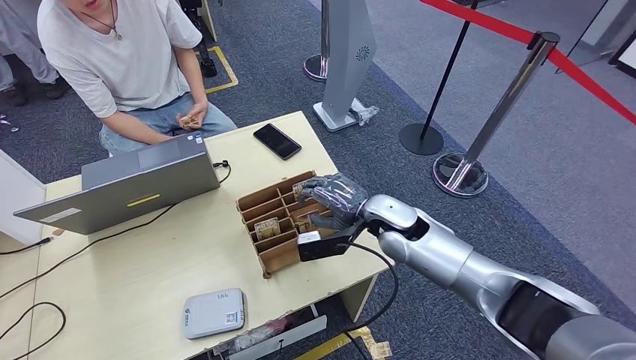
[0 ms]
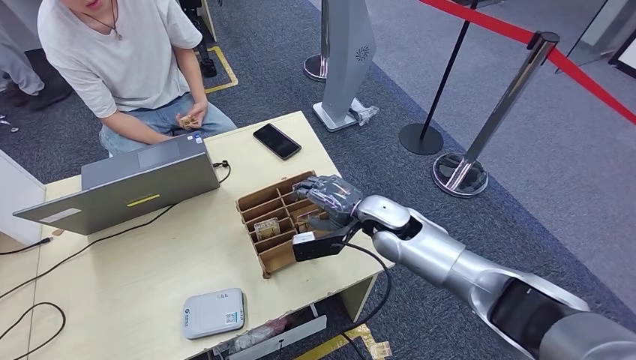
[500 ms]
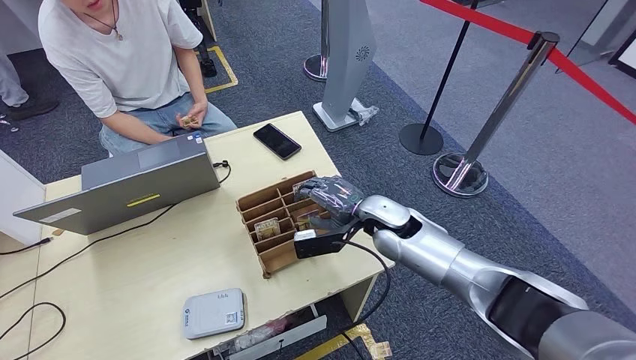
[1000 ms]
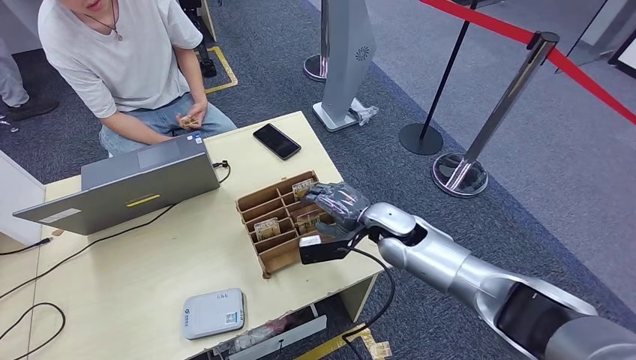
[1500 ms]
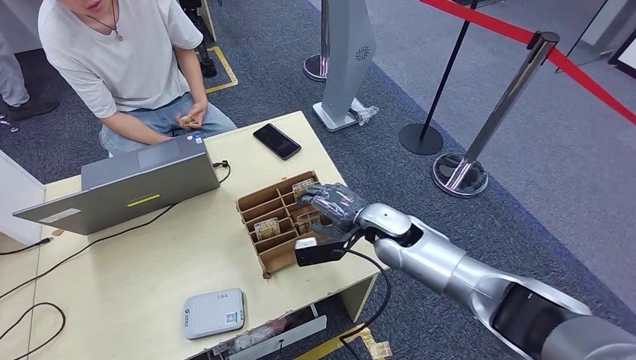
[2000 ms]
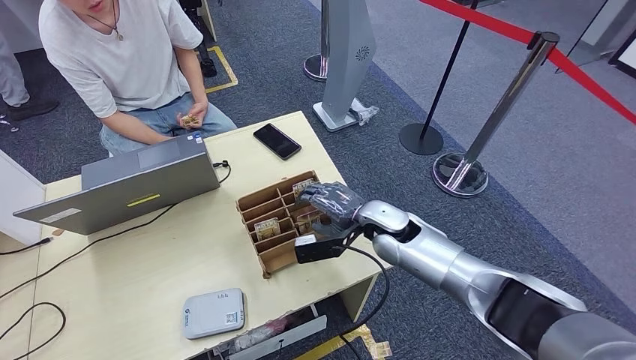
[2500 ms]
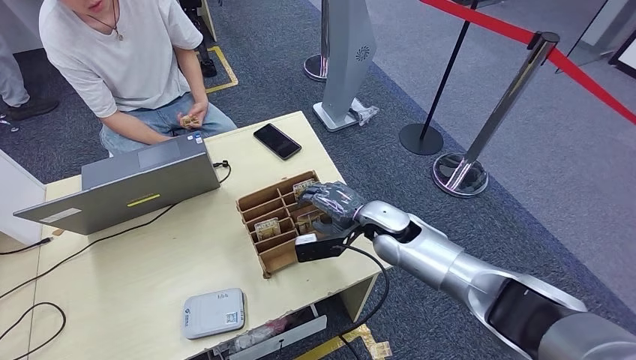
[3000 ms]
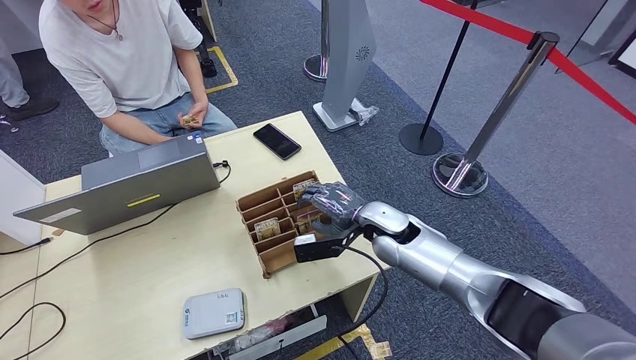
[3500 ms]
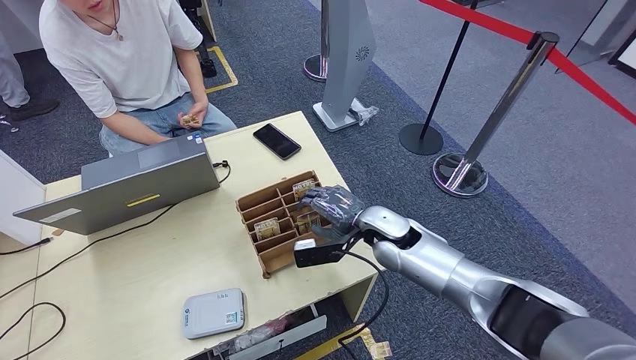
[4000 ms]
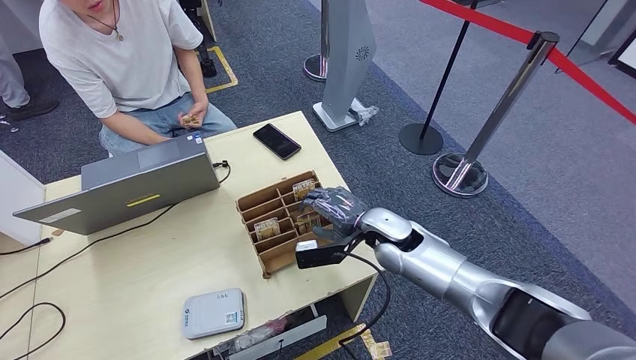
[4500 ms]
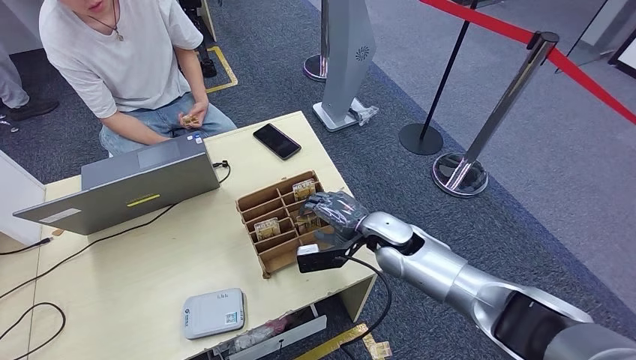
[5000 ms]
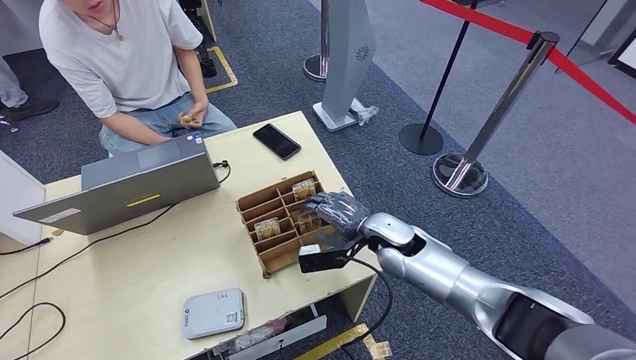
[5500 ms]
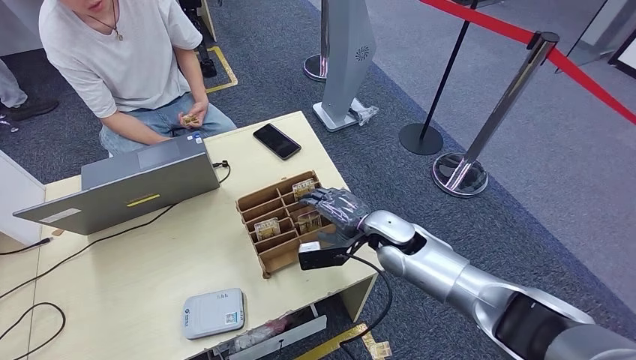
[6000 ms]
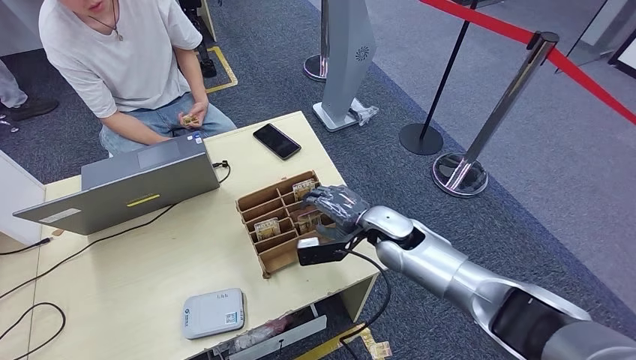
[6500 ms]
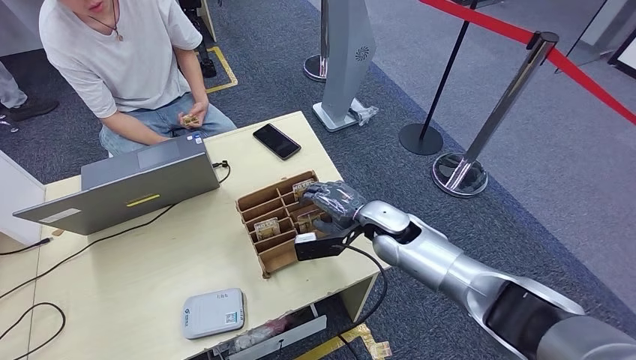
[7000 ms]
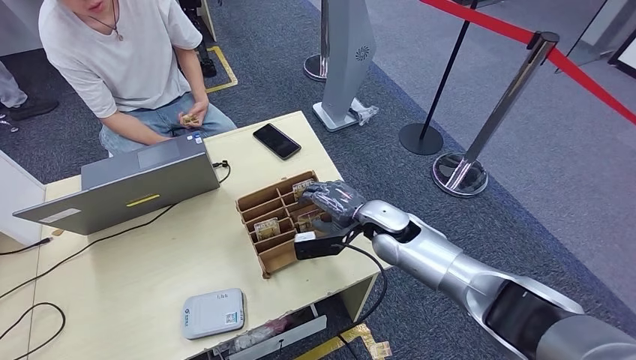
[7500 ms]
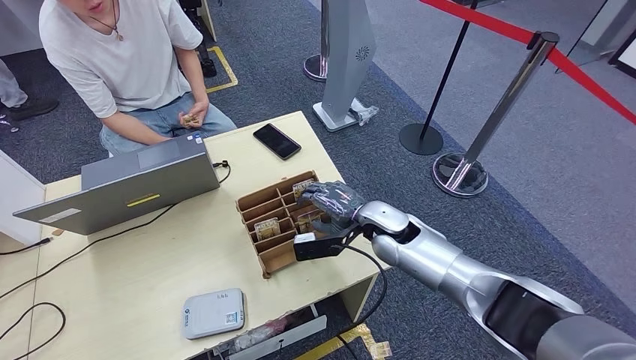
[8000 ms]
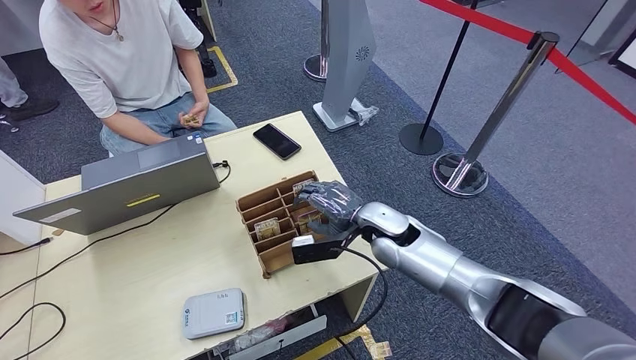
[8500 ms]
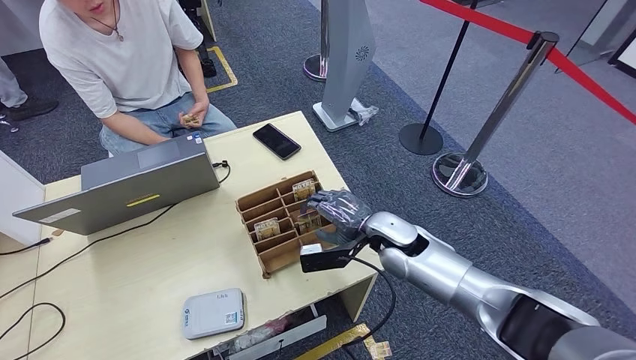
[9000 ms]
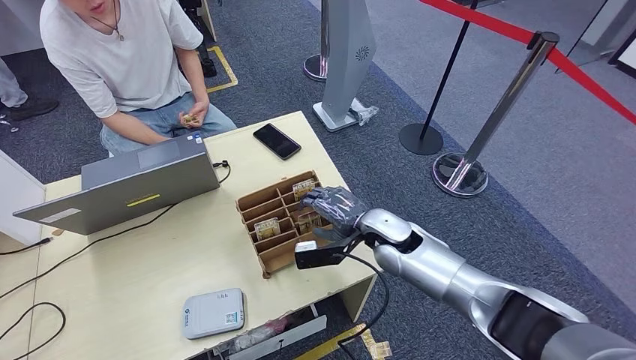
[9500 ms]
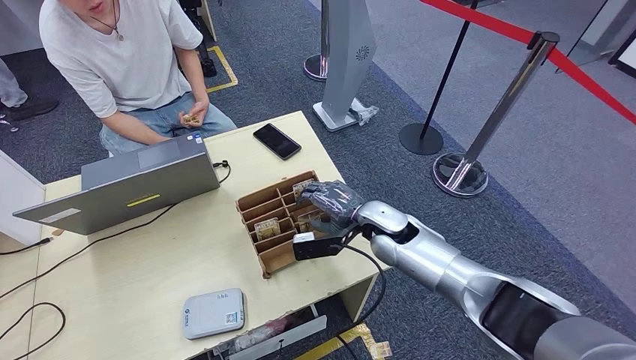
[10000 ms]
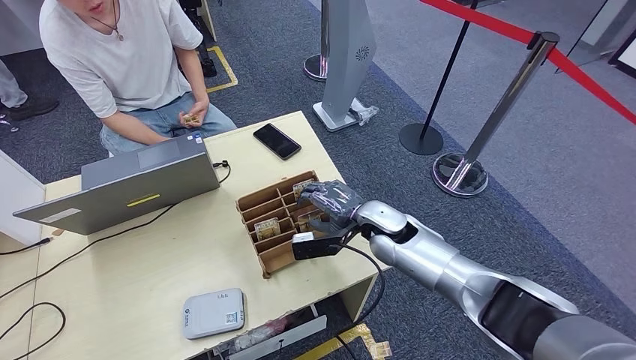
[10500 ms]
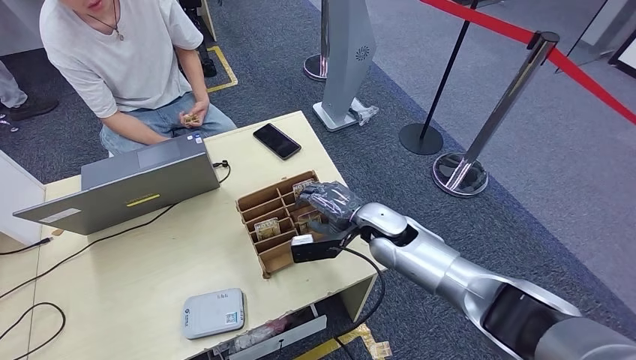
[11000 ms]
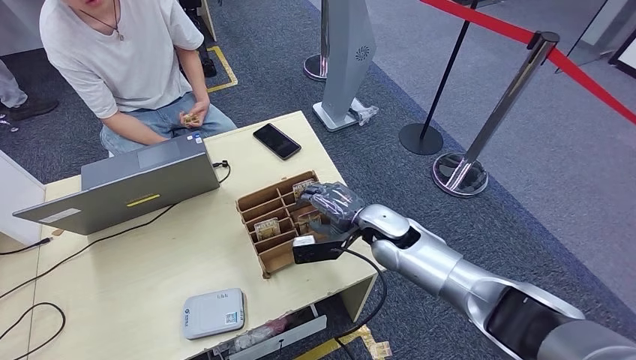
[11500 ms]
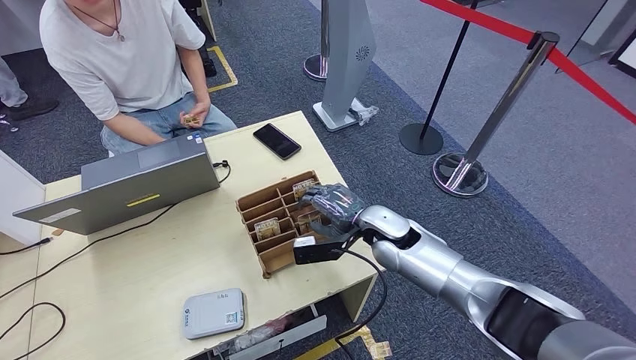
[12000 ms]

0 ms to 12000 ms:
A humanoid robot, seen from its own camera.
0 ms to 2000 ms: The hands move only a little.
2000 ms to 4000 ms: The two hands keep their place.
4000 ms to 10000 ms: The hands make only small movements.
10000 ms to 12000 ms: Both hands stay put.

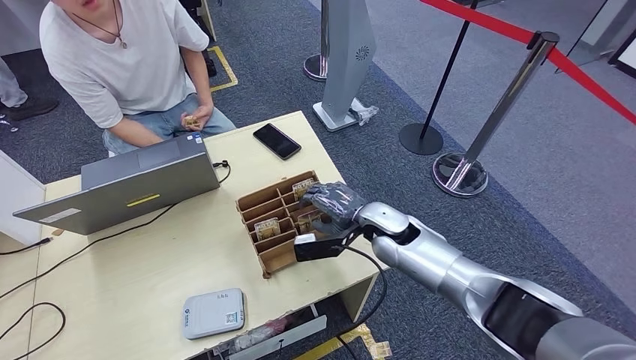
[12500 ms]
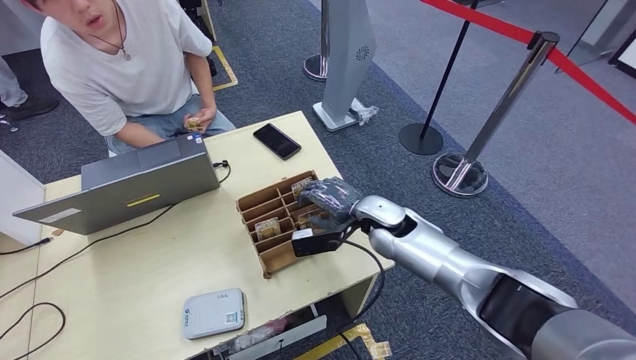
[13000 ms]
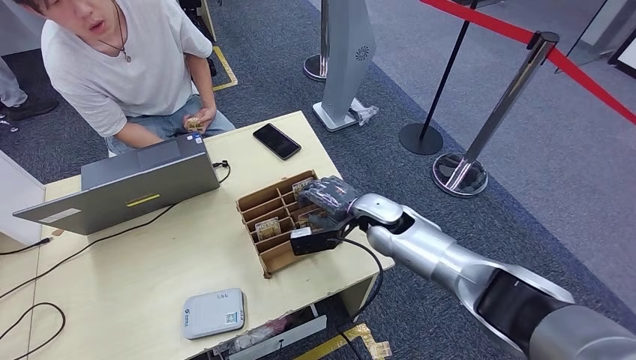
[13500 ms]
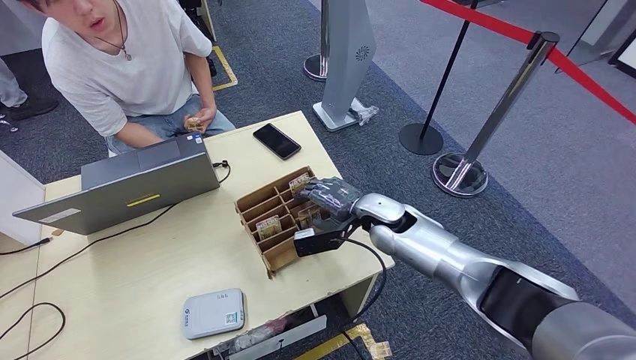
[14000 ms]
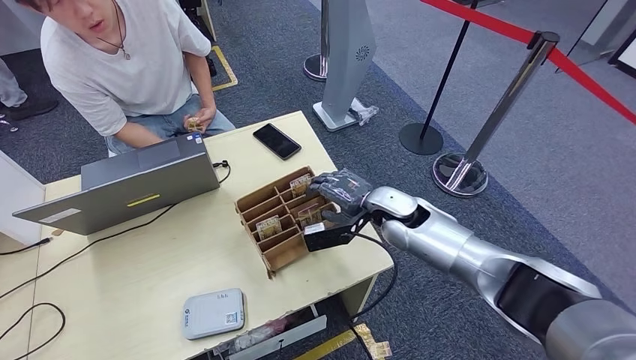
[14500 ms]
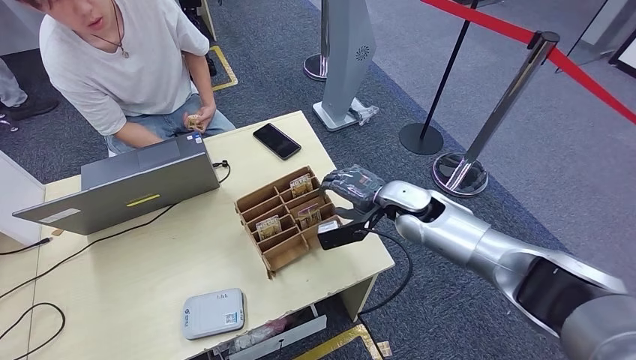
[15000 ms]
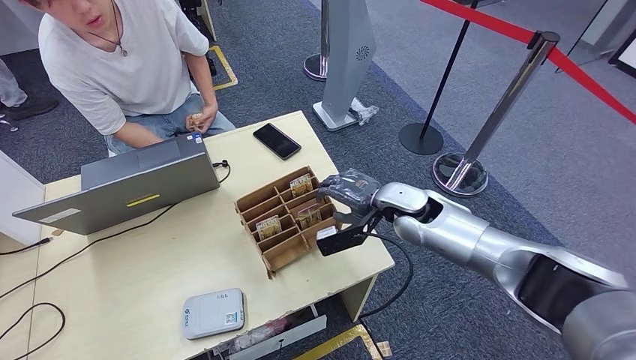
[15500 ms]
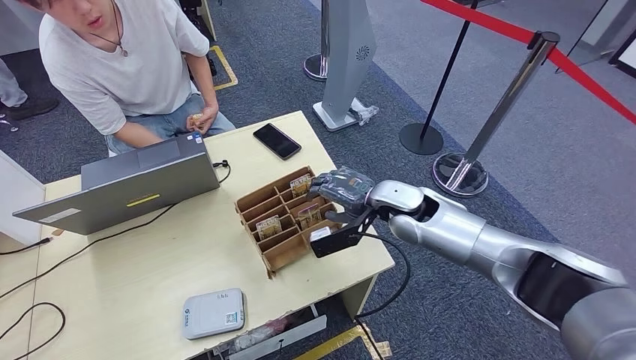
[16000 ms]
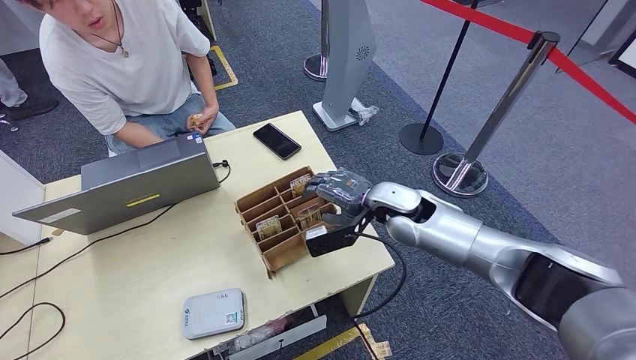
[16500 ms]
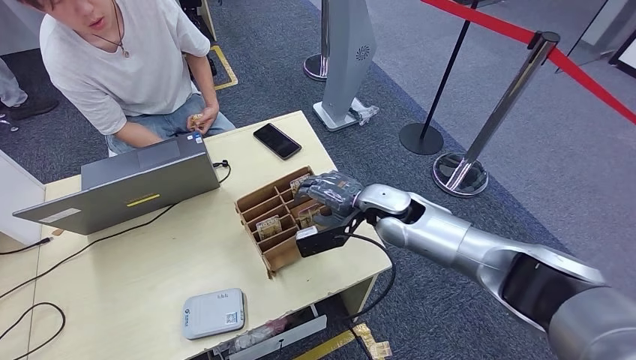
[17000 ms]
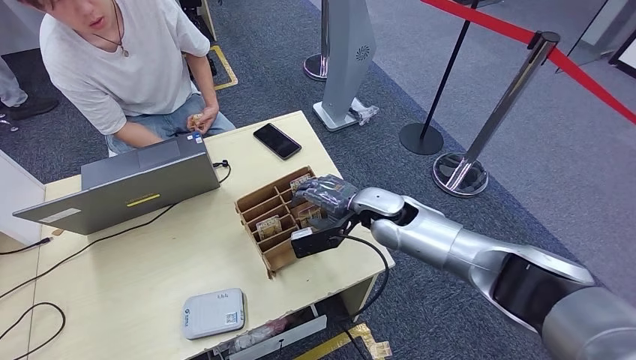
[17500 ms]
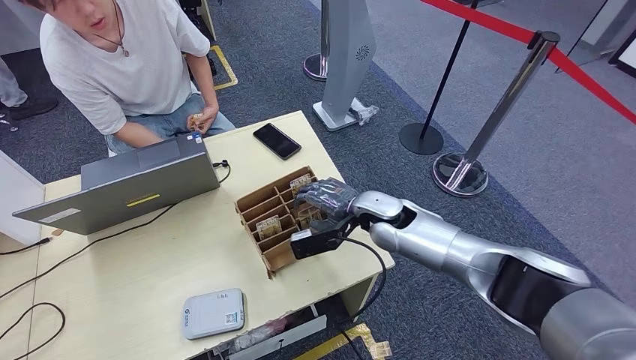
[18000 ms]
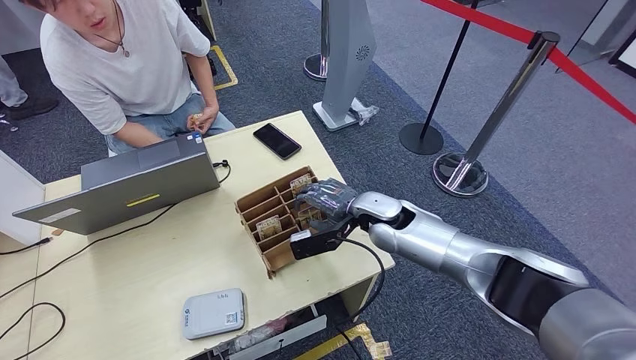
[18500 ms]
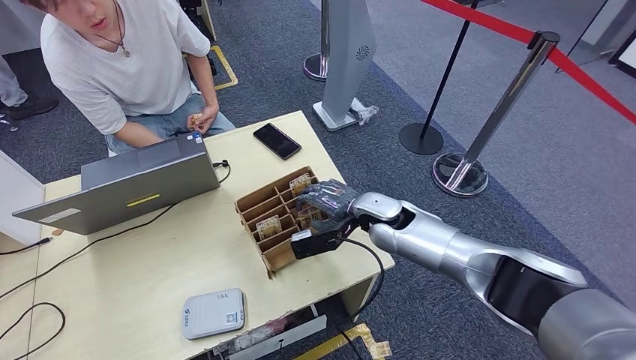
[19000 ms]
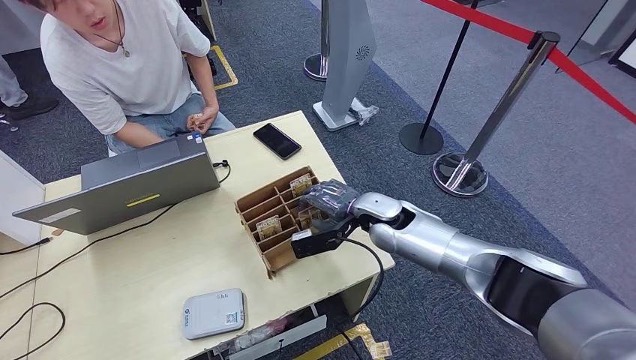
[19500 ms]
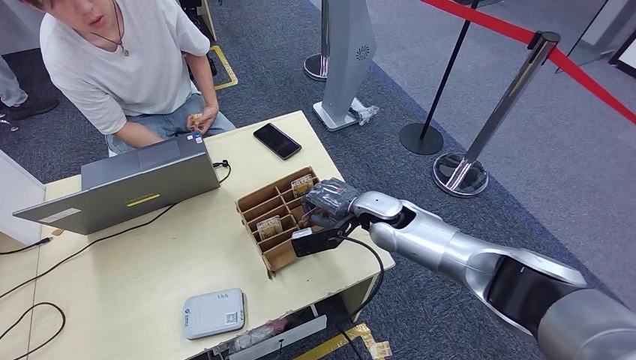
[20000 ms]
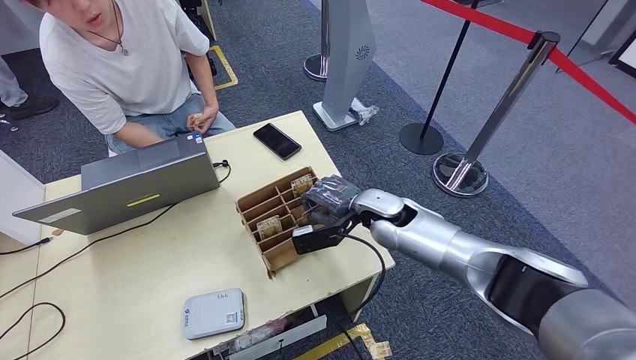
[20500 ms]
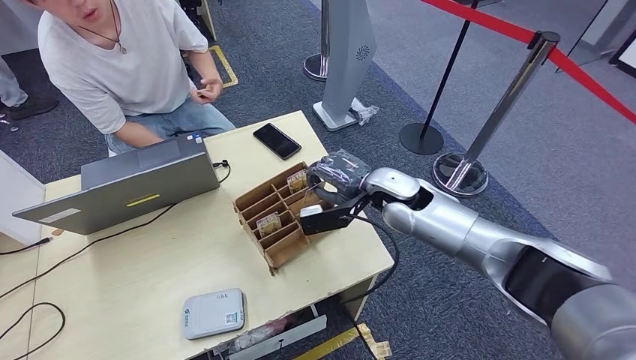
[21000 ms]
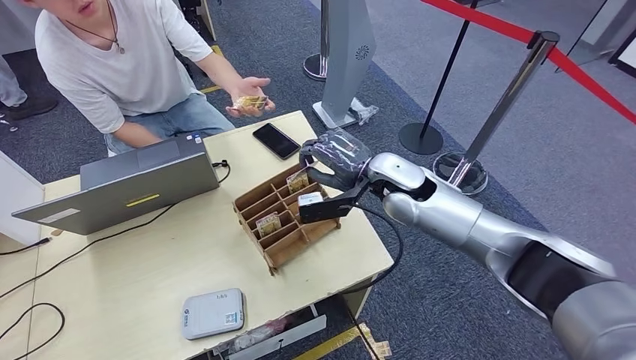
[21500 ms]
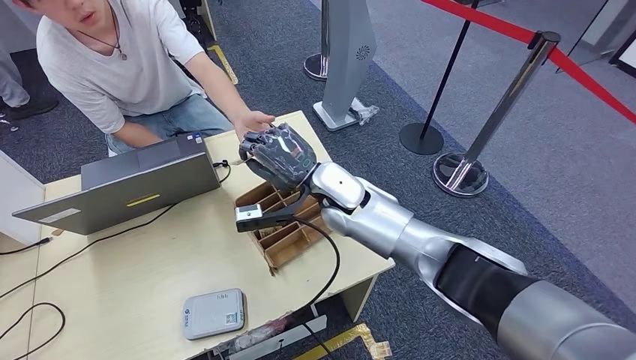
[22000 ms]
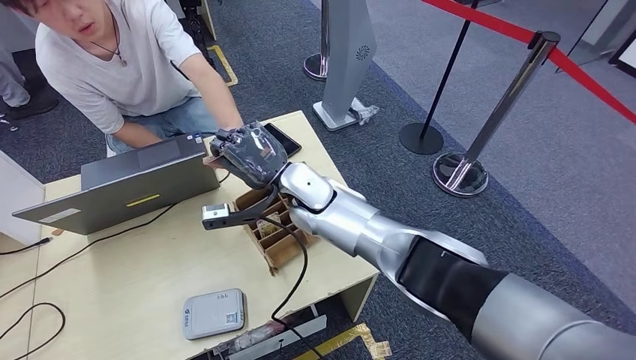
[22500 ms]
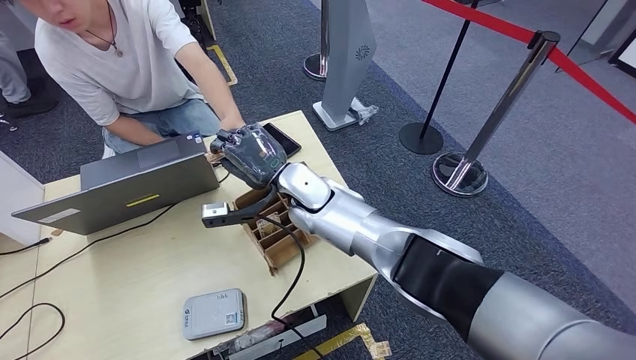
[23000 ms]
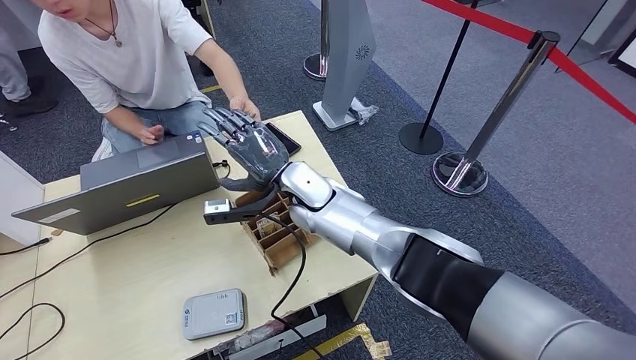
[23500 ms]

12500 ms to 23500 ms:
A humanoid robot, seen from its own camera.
Step, 12500 ms to 20500 ms: Pick up the room key from the key card box.
Step, 21000 ms to 23500 ms: Hand the room key to the person.
12500 ms to 14500 ms: The hands move only a little.
14500 ms to 18000 ms: The hands stay close to where they were, moving slightly.
18000 ms to 20000 ms: Both hands stay about where they are.
20000 ms to 21500 ms: The right hand heads upward, covering some 10 cm.
